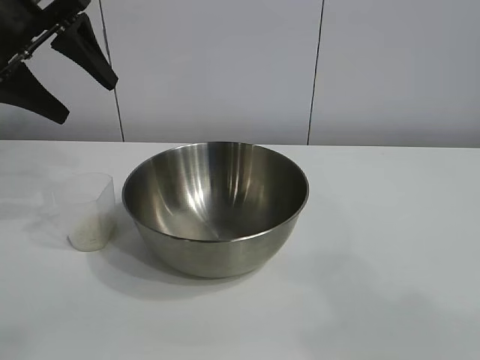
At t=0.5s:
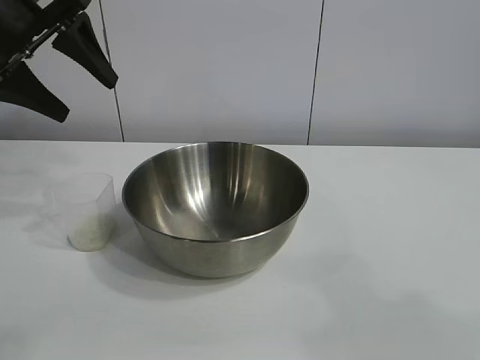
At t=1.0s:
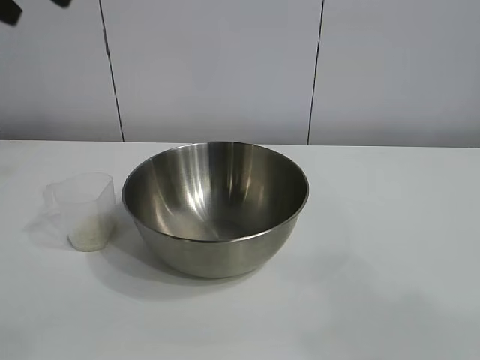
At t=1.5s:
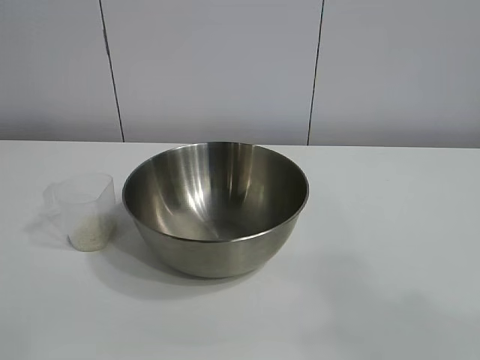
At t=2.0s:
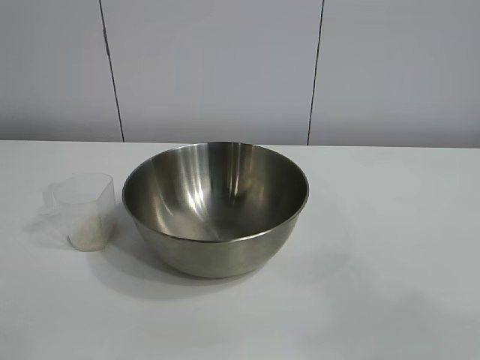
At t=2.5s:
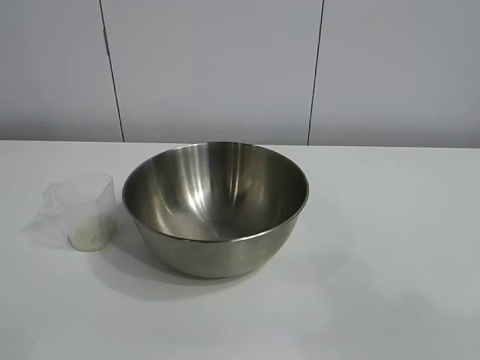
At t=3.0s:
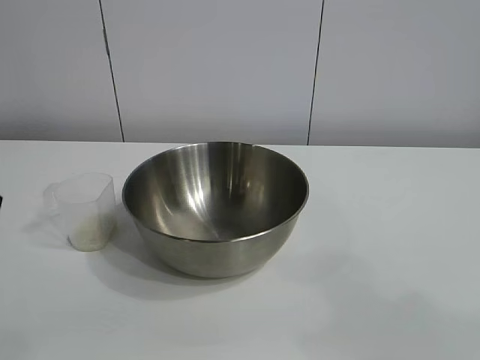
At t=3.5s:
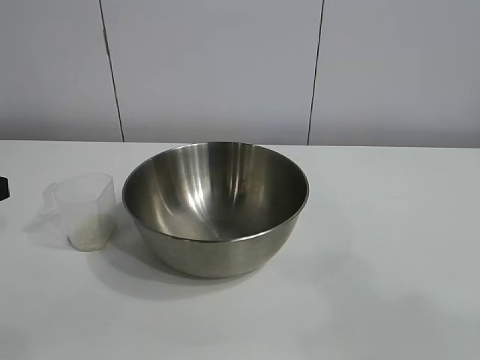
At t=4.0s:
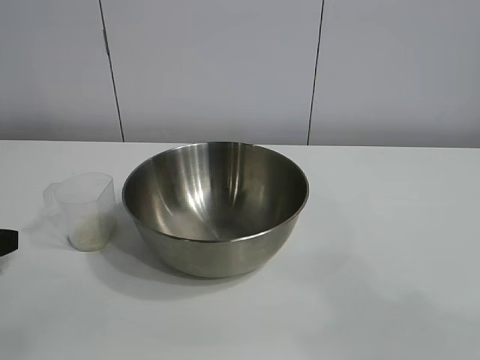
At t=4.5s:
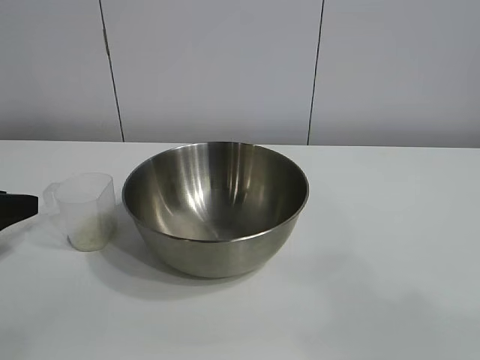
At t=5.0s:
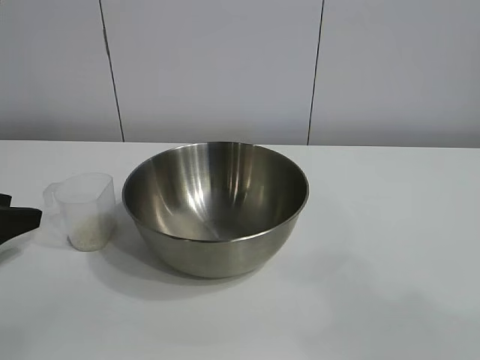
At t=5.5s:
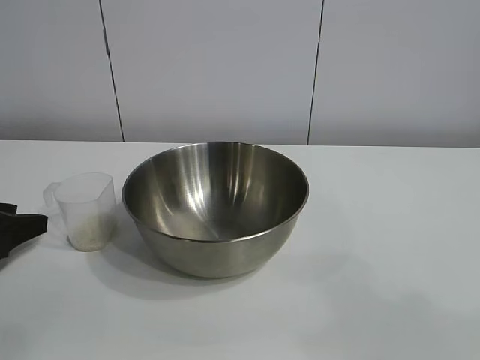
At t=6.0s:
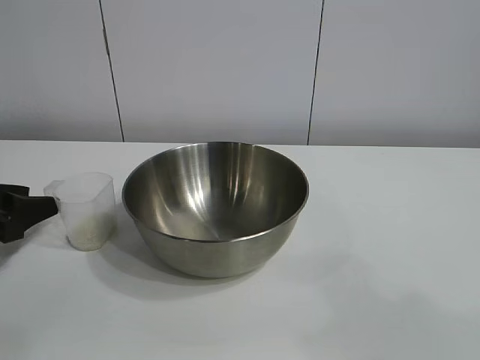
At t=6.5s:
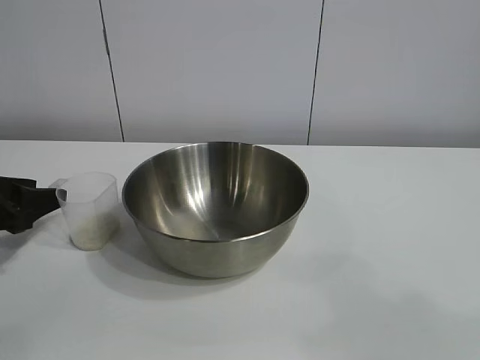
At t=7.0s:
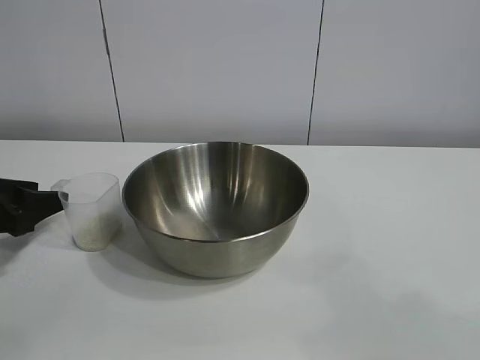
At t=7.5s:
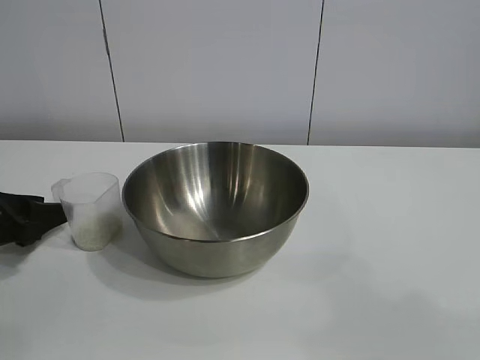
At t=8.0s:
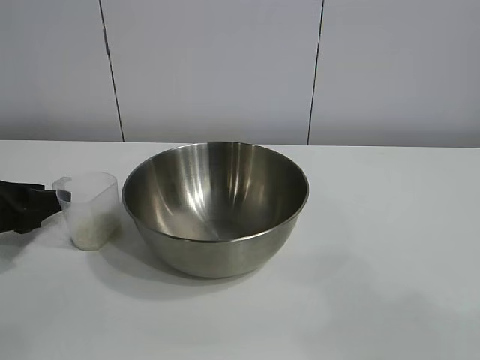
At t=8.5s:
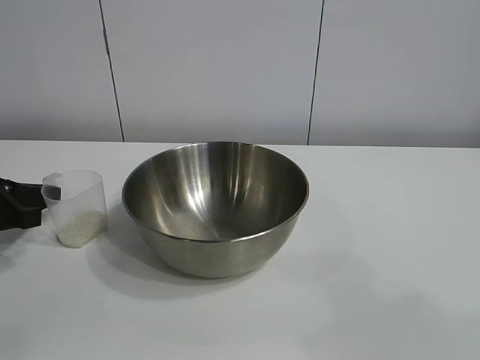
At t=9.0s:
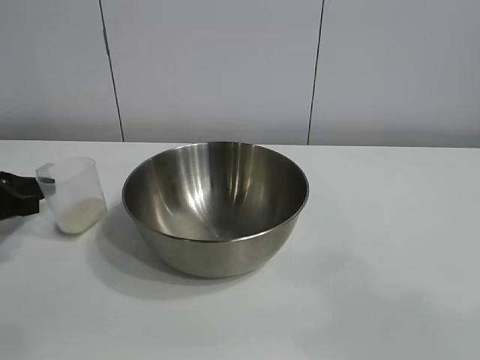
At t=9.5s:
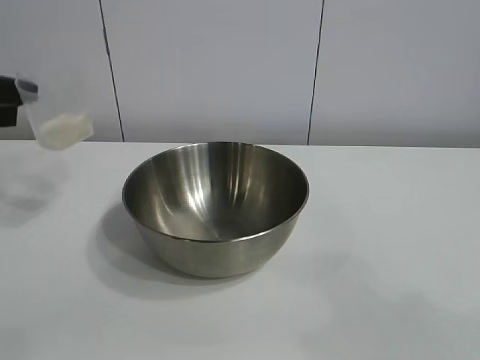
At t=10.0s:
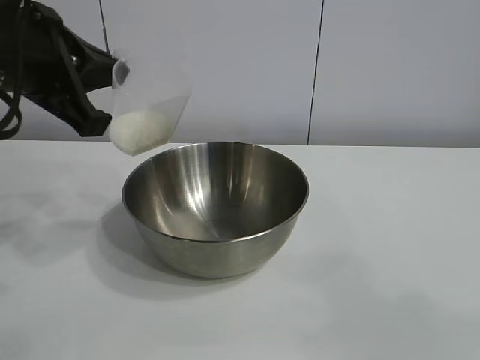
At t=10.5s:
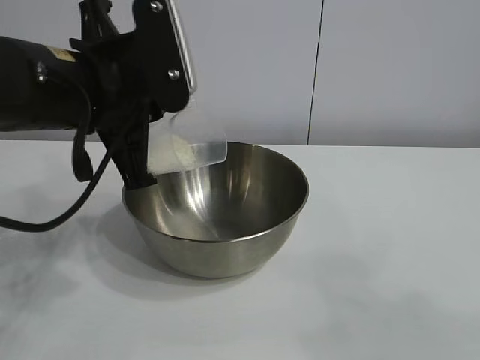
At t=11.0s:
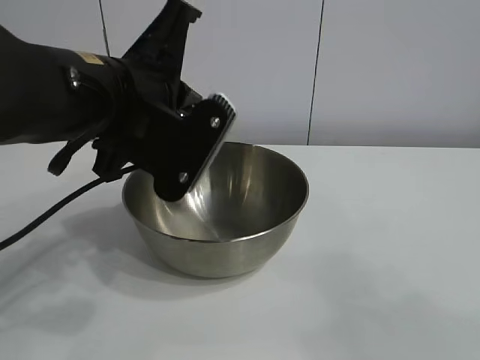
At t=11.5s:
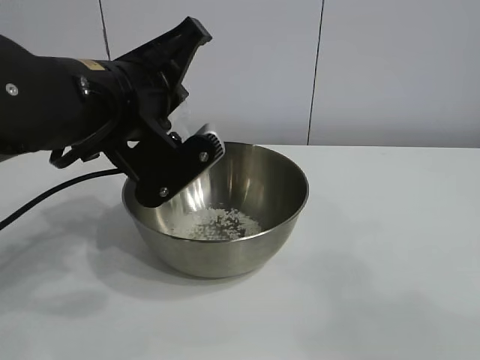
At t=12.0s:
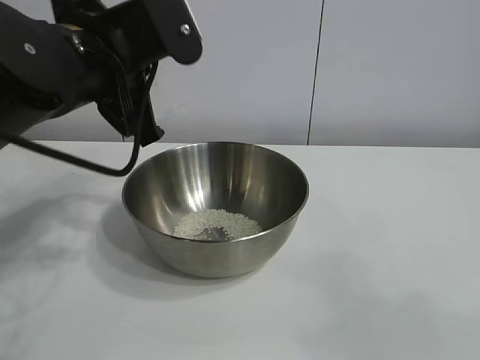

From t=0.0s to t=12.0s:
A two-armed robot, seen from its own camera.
Task of the whole recording: the right gripper grasp the rice container and place it in the center of the table, the left gripper grasp the rice scoop and pour the rice into the rice container.
Step, from t=0.0s to t=8.5s: Grasp the cup with rice in it with left gripper.
Step, from t=9.0s to t=11.5s: Pour the rice from the cup into the bowl with the left gripper.

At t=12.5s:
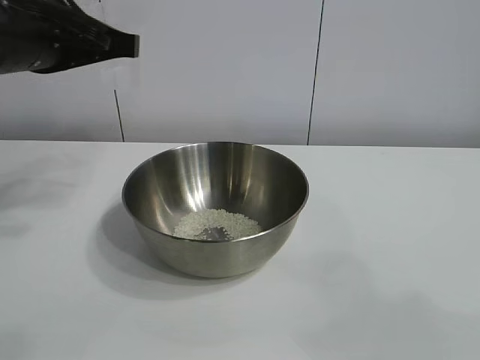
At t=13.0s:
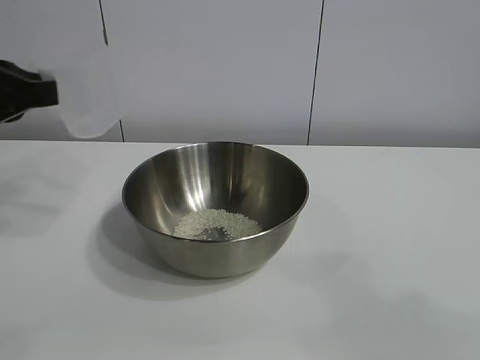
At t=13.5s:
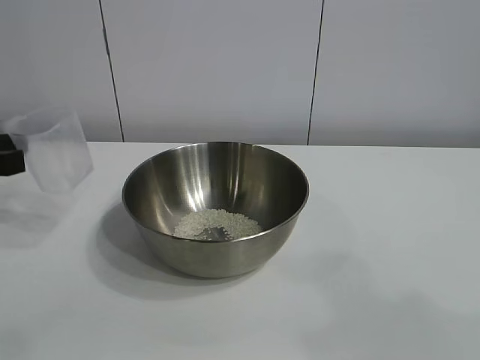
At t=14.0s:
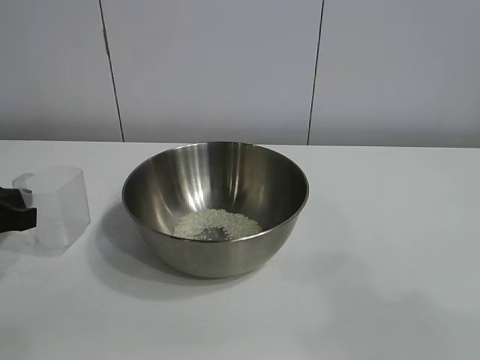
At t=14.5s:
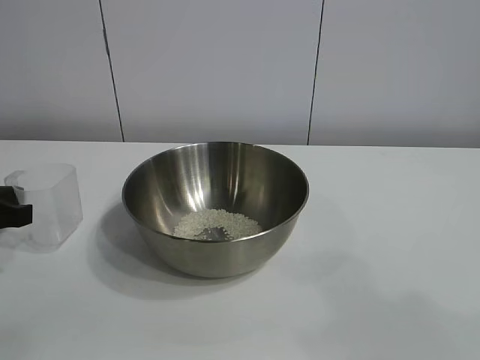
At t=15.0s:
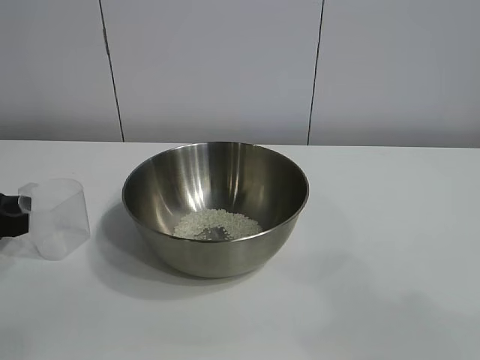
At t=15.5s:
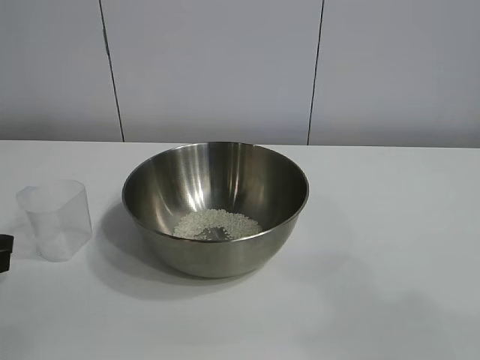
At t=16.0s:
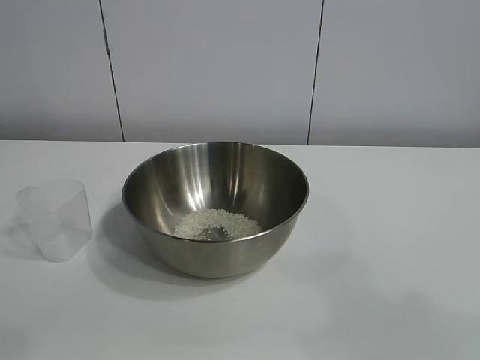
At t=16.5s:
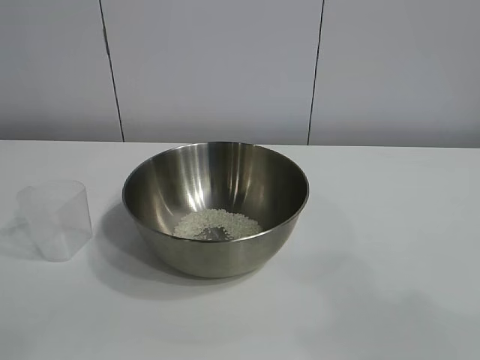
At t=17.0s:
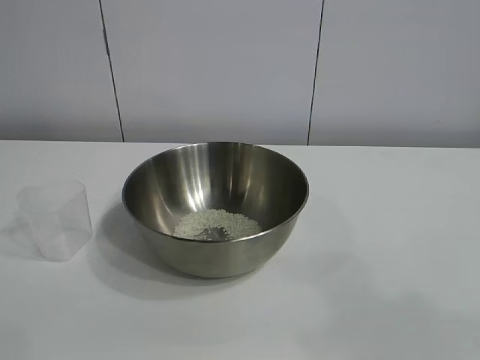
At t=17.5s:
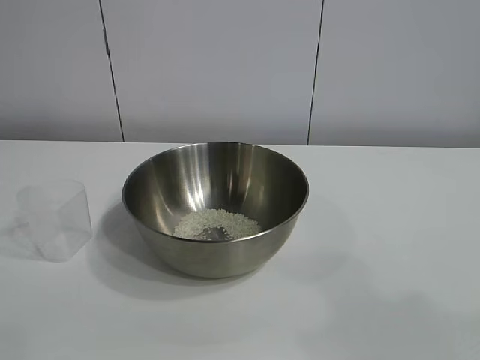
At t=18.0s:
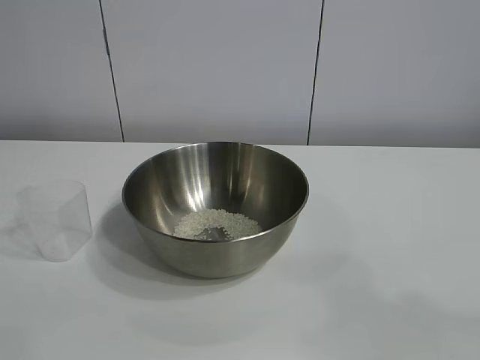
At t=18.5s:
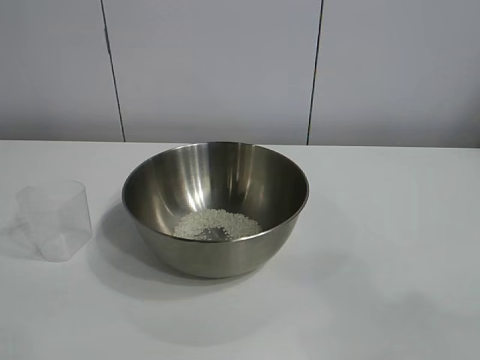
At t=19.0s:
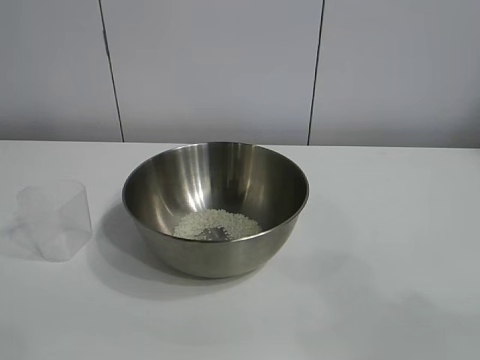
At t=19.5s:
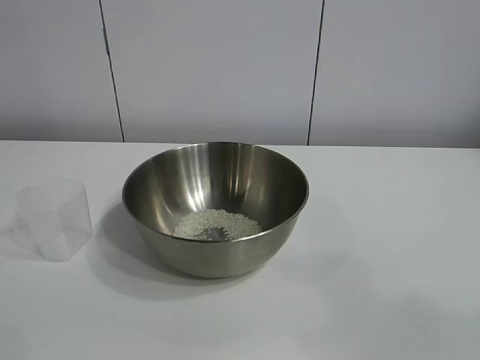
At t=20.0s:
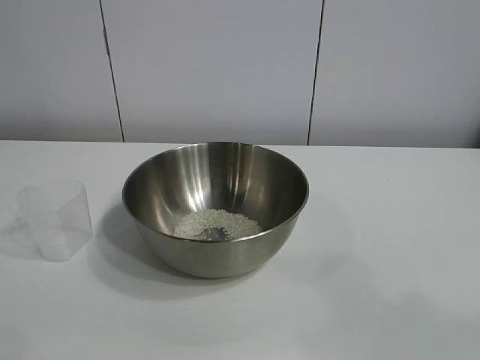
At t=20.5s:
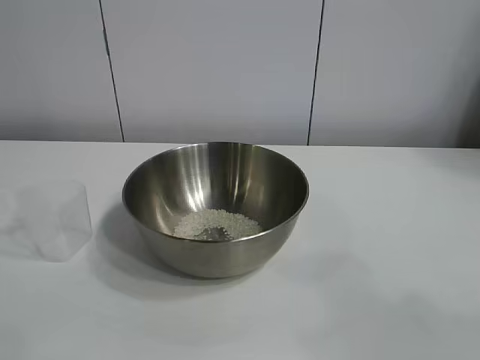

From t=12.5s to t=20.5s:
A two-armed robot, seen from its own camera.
Task of the whole recording: the right gripper grasp the rice container and place it in the center of the table, the left gripper grasp the rice scoop and pour the rice into the rice container.
Step, from t=12.5s to t=14.5s: Place the cup on the table with the left gripper.
